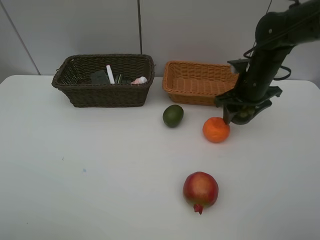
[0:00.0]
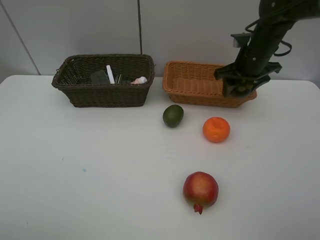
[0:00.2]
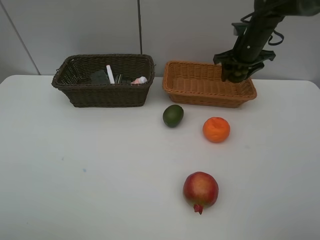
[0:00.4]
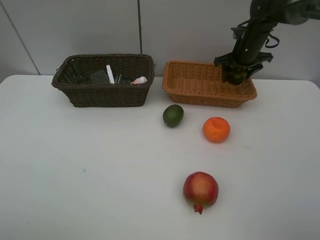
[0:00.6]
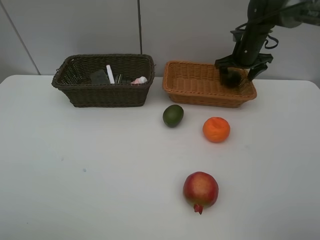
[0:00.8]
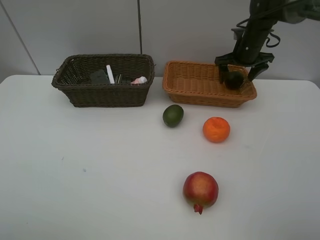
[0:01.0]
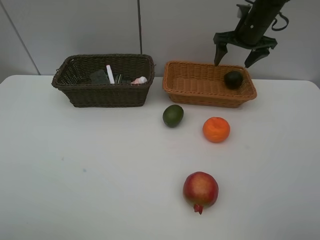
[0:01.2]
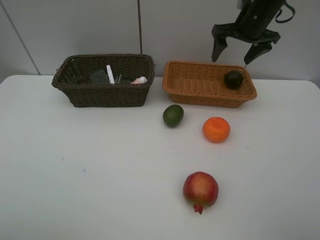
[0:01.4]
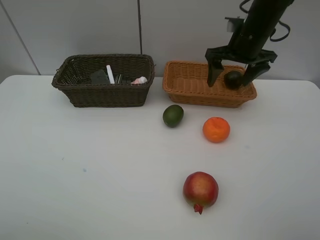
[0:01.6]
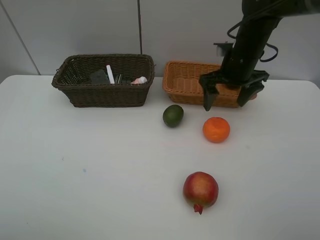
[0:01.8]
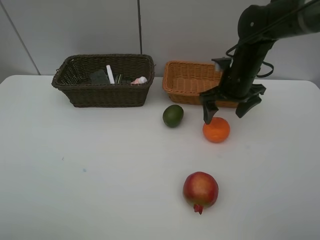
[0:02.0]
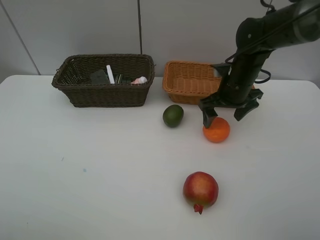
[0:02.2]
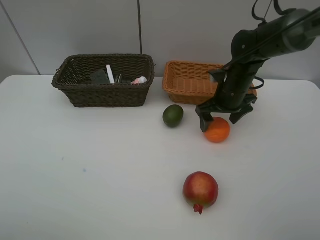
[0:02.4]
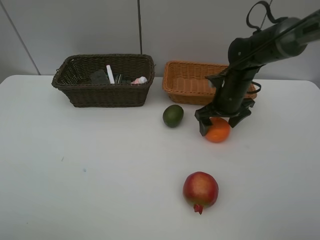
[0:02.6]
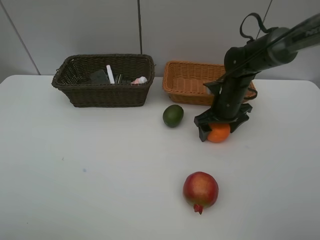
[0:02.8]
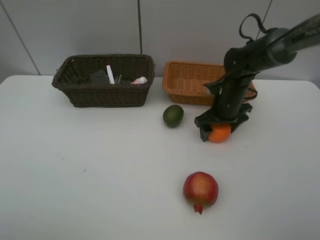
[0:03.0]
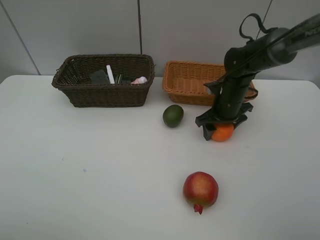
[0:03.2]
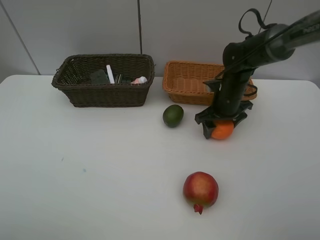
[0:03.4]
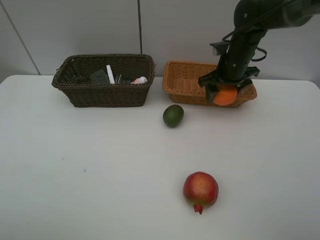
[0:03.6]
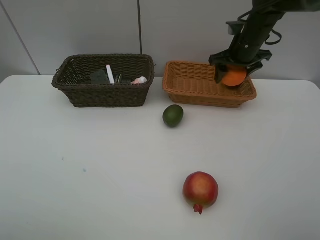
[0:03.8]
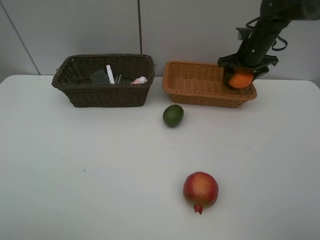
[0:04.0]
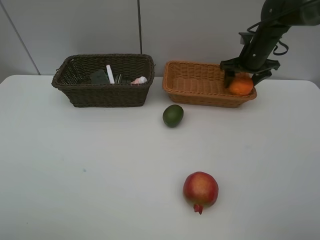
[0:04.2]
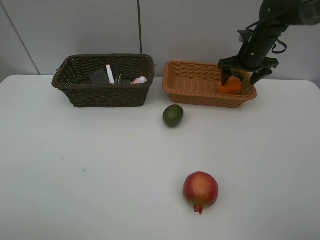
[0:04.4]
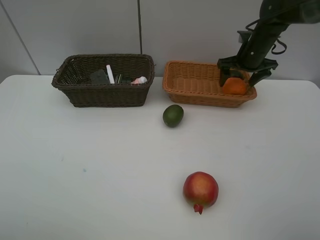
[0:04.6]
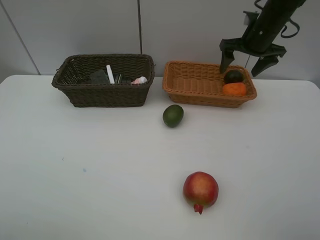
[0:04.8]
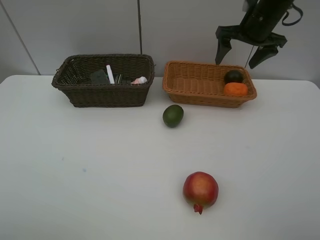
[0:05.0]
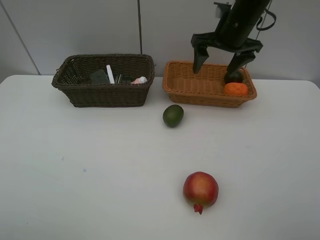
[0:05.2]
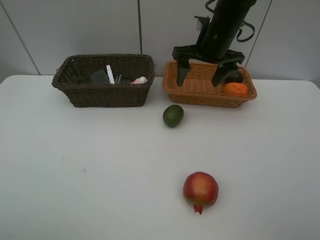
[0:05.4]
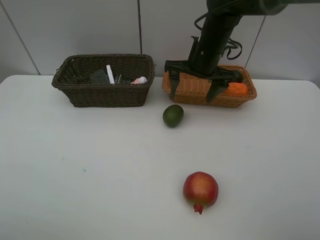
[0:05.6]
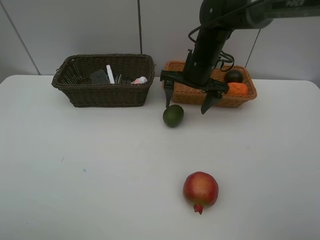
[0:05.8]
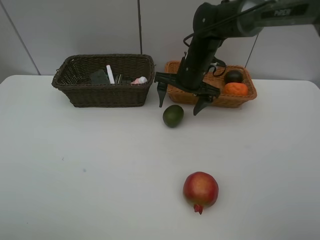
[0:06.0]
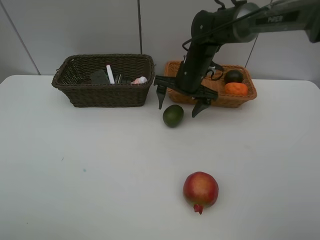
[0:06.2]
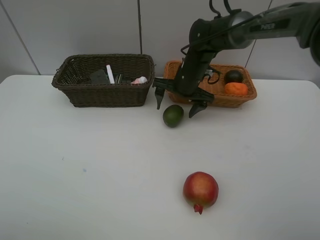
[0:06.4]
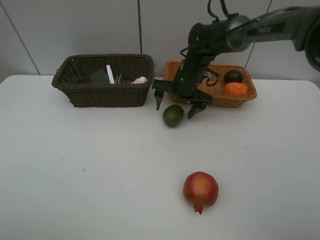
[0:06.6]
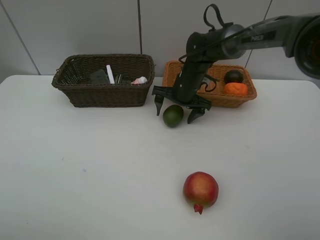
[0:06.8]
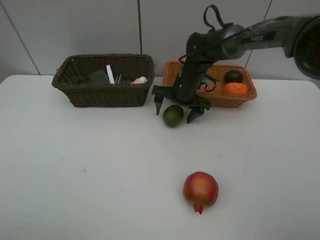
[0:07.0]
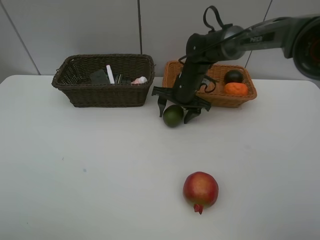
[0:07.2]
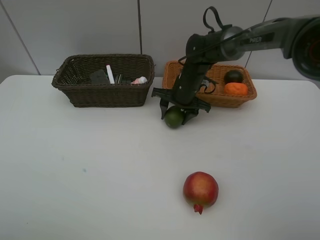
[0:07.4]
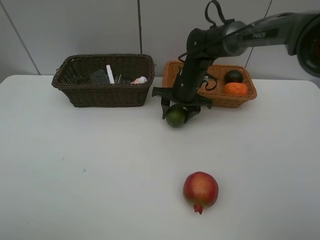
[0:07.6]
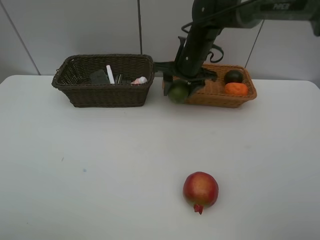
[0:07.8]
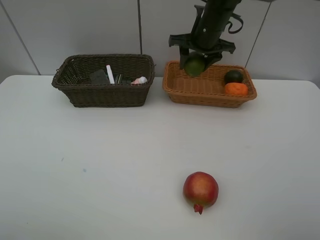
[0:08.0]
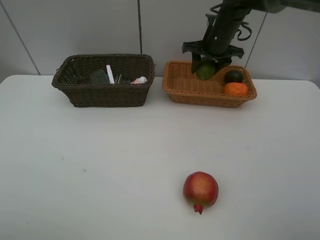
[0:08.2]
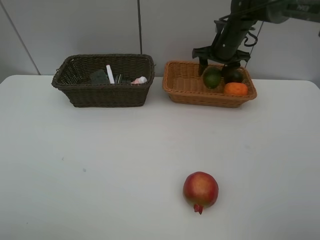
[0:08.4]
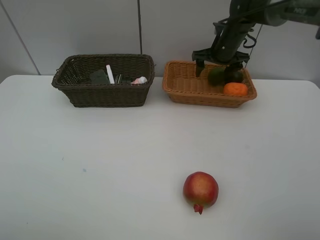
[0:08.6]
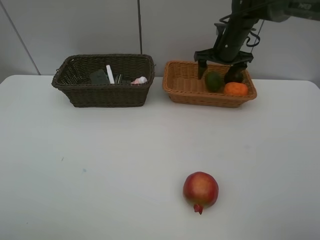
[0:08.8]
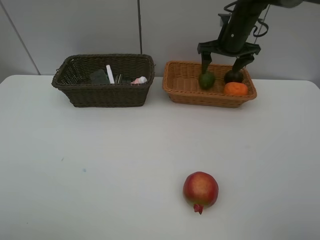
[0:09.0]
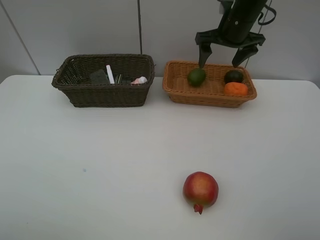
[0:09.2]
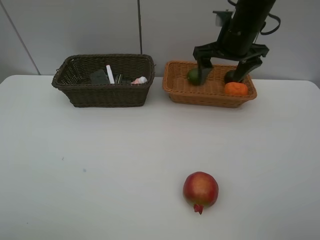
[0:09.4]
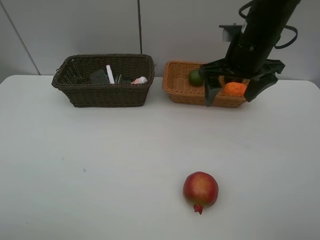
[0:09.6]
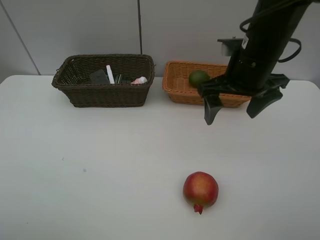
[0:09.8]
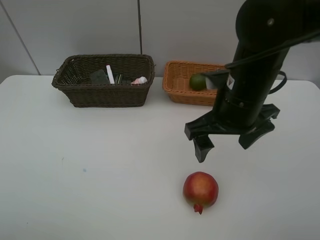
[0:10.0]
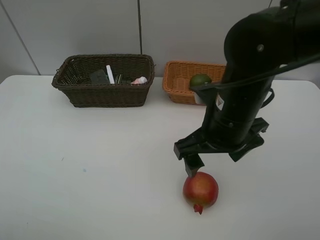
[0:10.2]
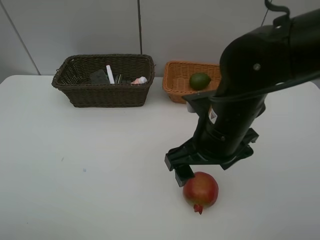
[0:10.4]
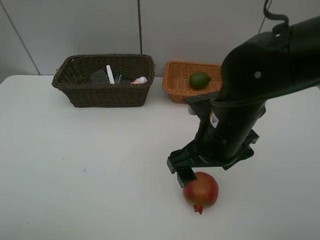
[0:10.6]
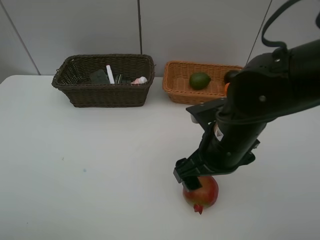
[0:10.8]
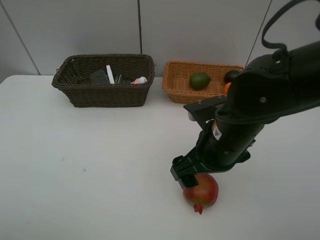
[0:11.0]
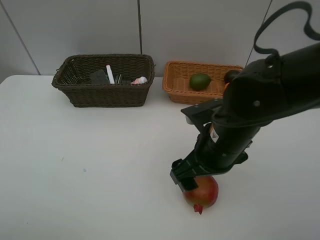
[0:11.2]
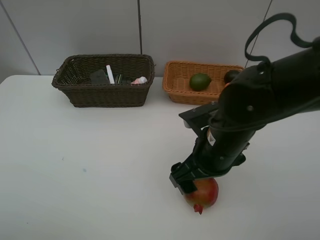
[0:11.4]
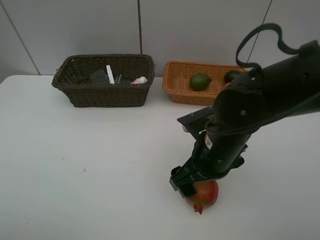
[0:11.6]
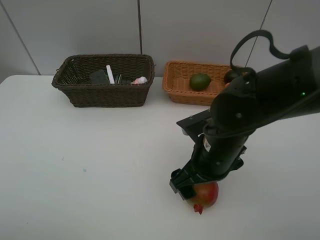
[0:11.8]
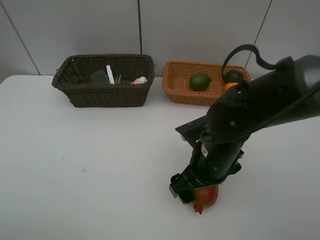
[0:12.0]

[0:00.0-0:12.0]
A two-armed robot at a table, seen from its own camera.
Task of the whole recording: Place multiple objects separately in different baskets.
Step, 0:00.0 to 0:01.0: Place the mangosteen in the light basket with right gripper.
Step, 0:01.2 to 0:03.4: Pick up the orange with right gripper.
Step, 0:03.6 to 0:04.8: Place the orange in the light basket with right gripper.
Step, 0:05.0 to 0:07.6: Pick up the lime with right gripper.
Step, 0:07.8 to 0:08.8: Place the lime in the light basket with right gripper.
0:00.0 to 0:01.6: The right gripper shifts some 5 cm upward, moves roughly 15 cm forward and comes back, and opens.
0:01.6 to 0:03.0: The right gripper is displaced downward by some 15 cm.
0:03.0 to 0:04.4: The right gripper moves forward, upward and to the right, some 15 cm, and closes, then reopens.
0:04.4 to 0:06.0: The right gripper is displaced to the left and backward by some 20 cm.
0:06.0 to 0:07.6: The right gripper closes.
0:07.6 to 0:09.0: The right gripper swings up and down, about 10 cm each way, with 2 reversals, and opens its fingers.
0:09.0 to 0:10.4: The right gripper is displaced backward by approximately 30 cm.
0:10.4 to 0:12.0: The right gripper goes roughly 10 cm downward.

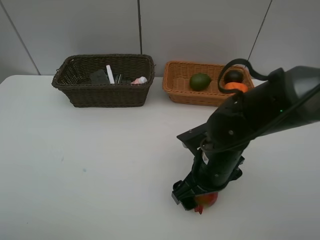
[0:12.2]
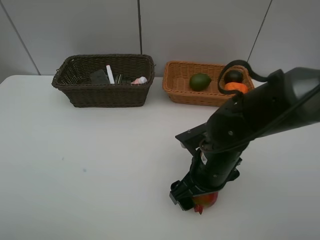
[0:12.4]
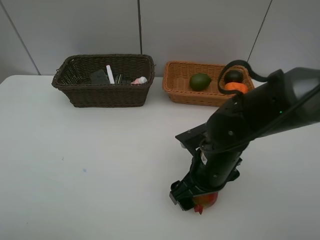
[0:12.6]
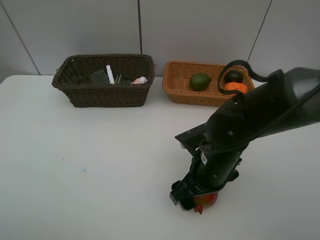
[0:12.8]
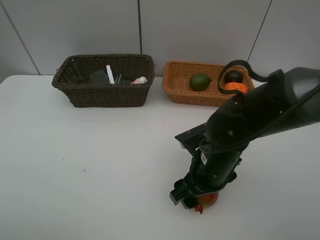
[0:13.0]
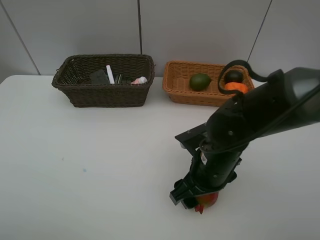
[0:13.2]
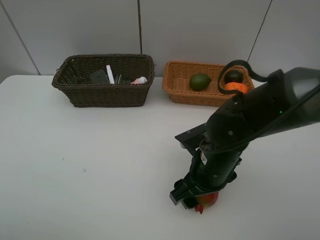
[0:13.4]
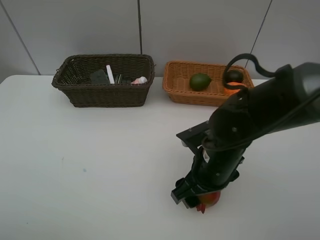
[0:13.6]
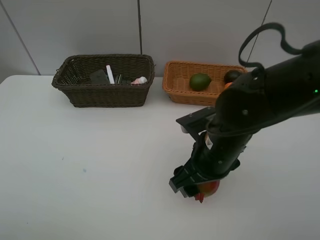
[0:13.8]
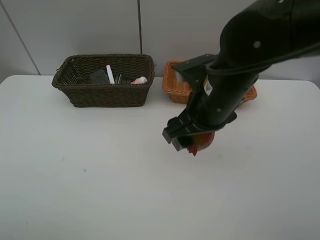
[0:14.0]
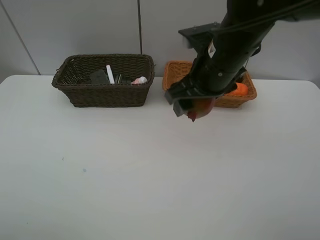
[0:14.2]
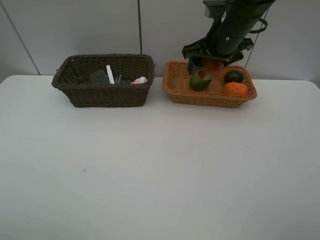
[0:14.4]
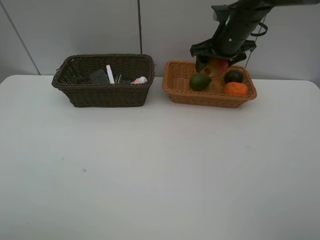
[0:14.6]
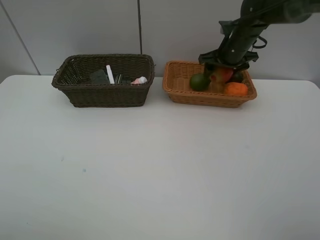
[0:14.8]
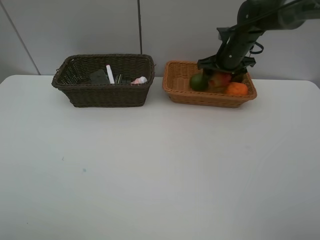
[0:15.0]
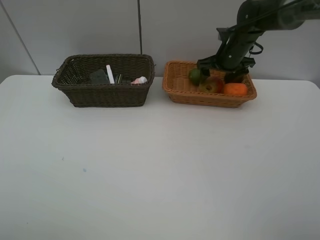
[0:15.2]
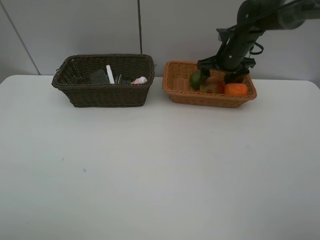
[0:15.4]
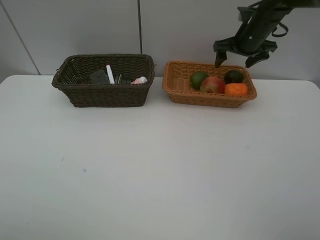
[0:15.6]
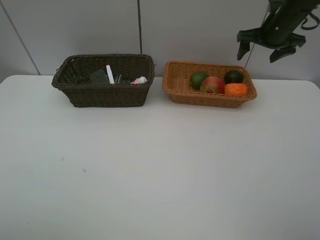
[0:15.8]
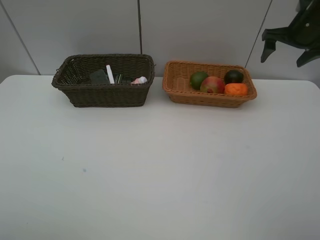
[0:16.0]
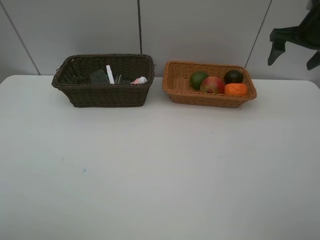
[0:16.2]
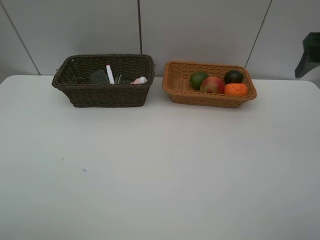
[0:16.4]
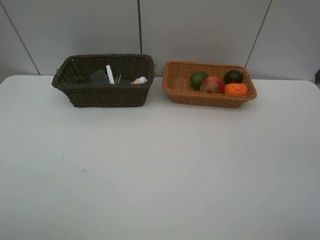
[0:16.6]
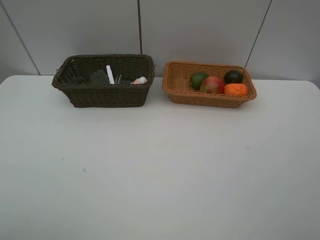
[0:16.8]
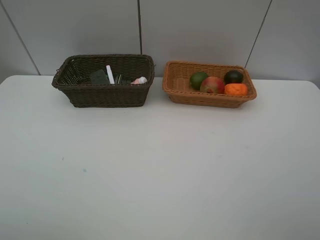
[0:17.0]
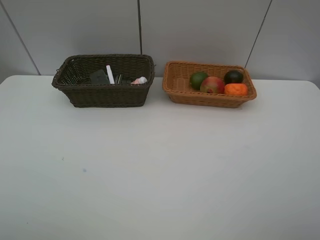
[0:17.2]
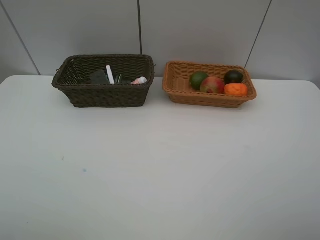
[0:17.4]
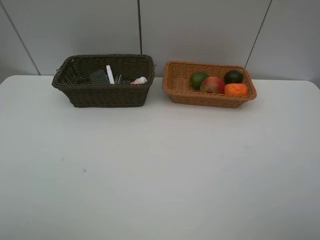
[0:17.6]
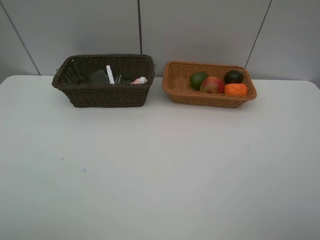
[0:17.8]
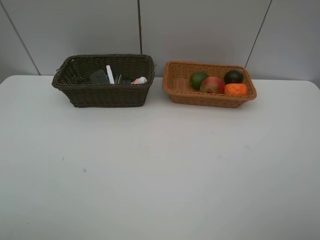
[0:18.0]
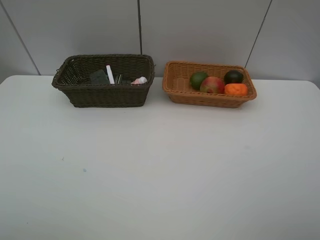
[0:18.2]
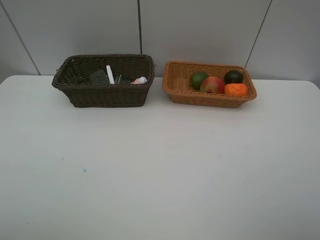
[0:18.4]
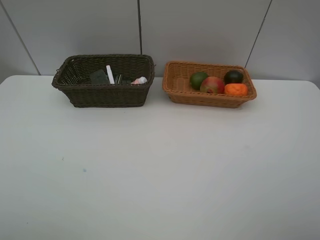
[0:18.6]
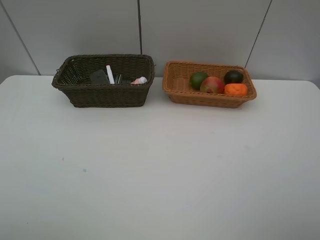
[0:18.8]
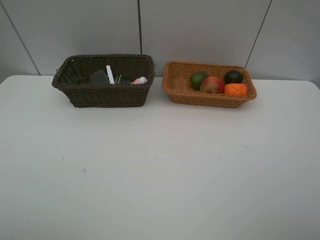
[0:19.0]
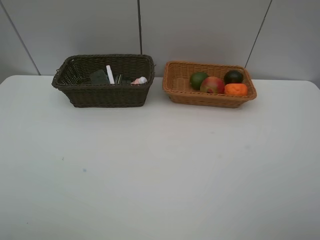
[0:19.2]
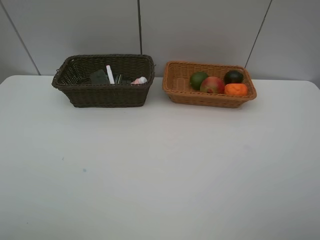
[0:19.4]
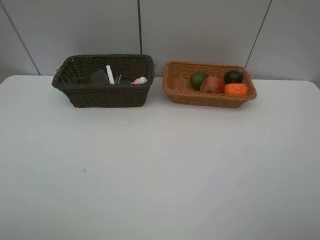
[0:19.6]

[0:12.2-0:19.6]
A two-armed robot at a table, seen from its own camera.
Task of the whole recording: Place multiple objects separately in different baskets.
Step, 0:14.0 to 0:15.4: Place the pomegranate in the light basket with right gripper.
0:12.2 to 0:13.6: The right gripper closes up.
0:13.6 to 0:15.2: The right gripper is displaced forward by roughly 30 cm, and opens its fingers.
0:15.2 to 0:16.6: The right gripper travels backward, upward and to the right by roughly 35 cm.
0:18.2 to 0:19.6: Both grippers stay about where they are.
